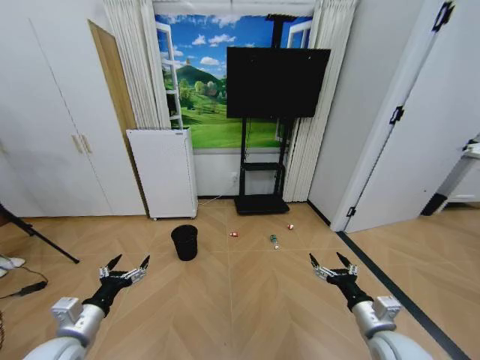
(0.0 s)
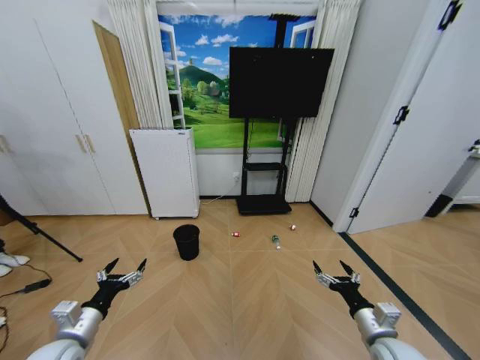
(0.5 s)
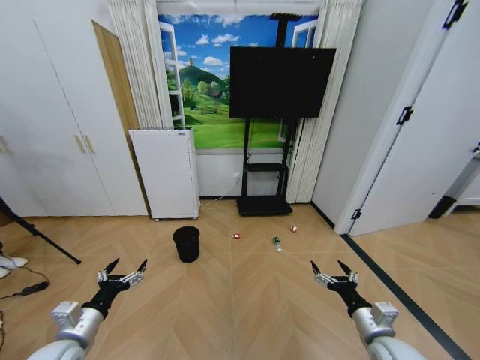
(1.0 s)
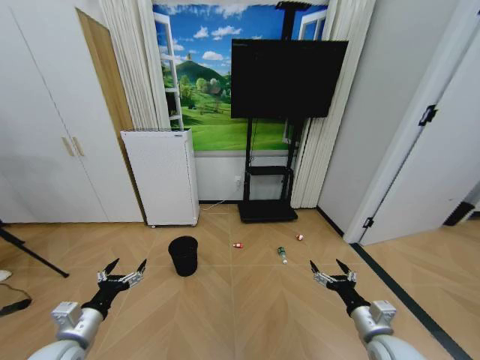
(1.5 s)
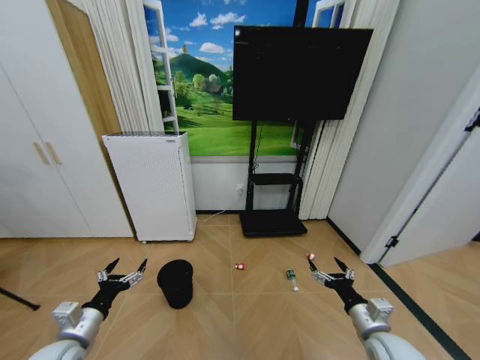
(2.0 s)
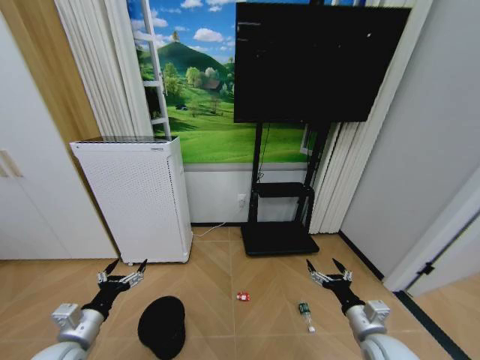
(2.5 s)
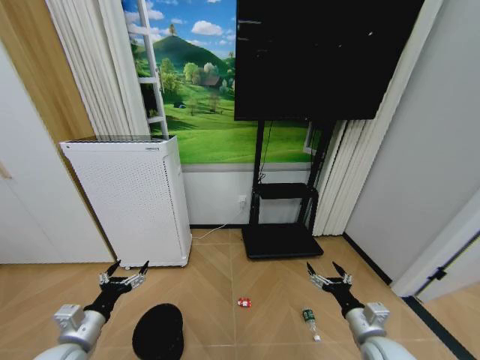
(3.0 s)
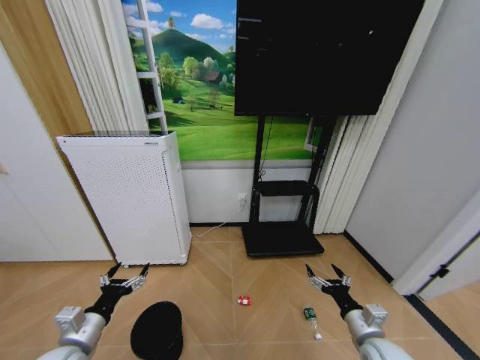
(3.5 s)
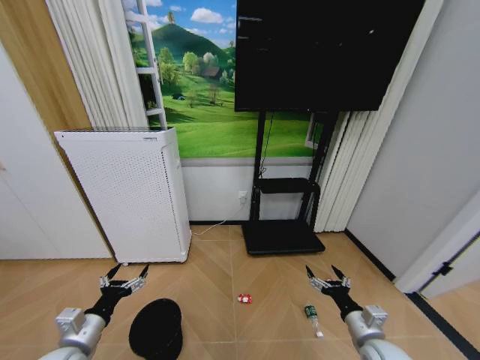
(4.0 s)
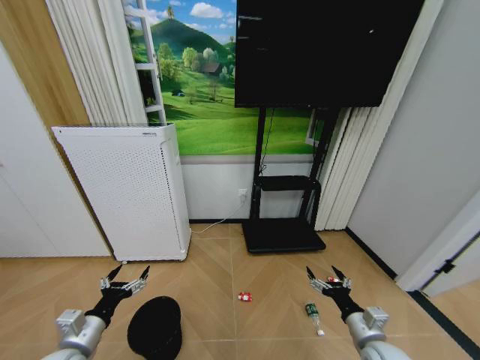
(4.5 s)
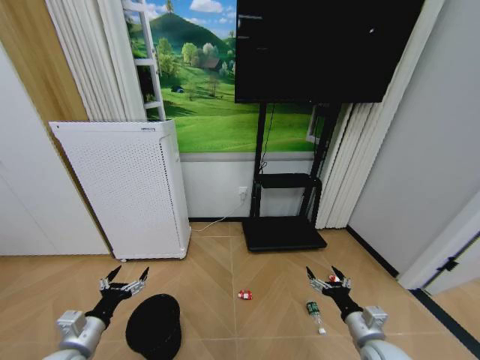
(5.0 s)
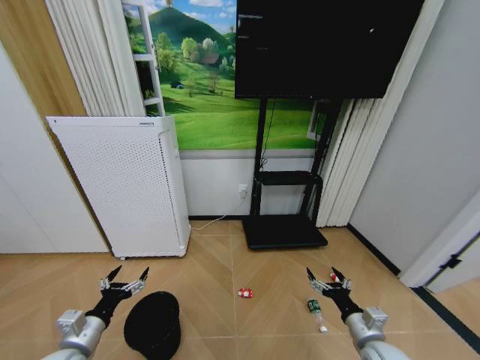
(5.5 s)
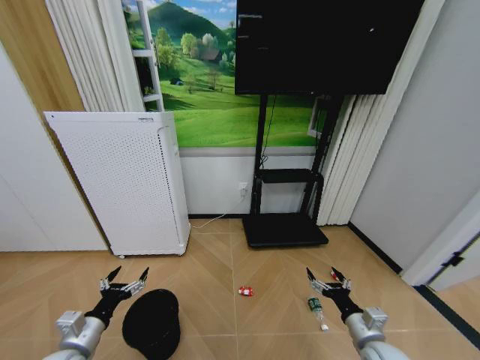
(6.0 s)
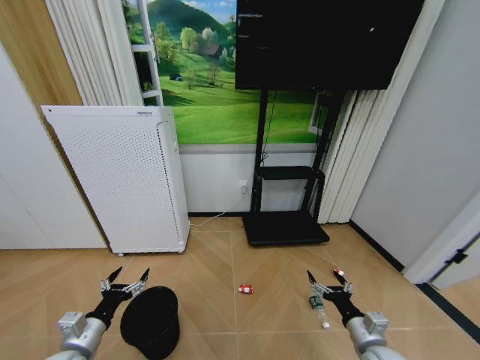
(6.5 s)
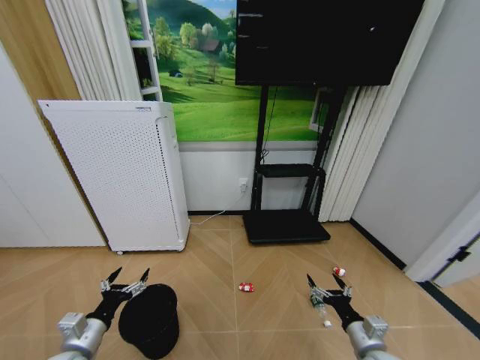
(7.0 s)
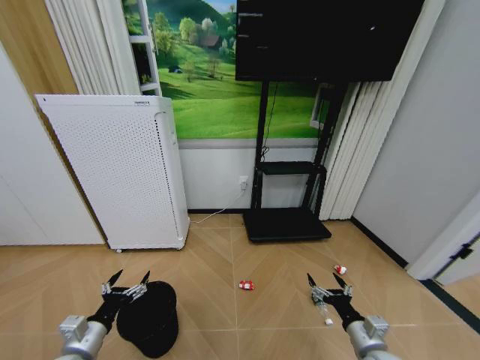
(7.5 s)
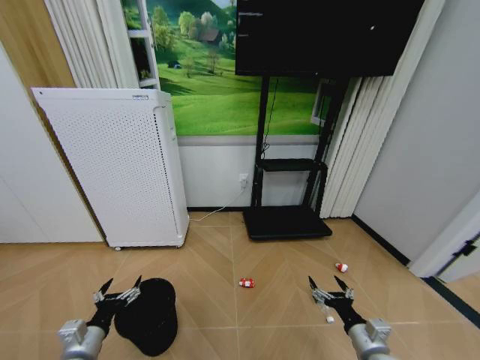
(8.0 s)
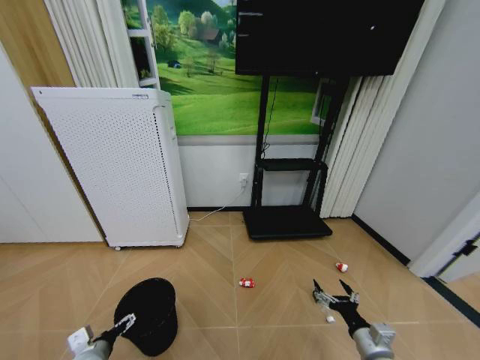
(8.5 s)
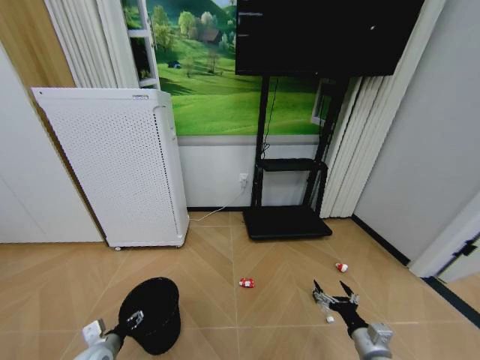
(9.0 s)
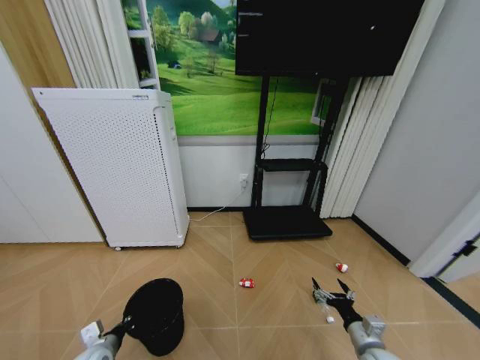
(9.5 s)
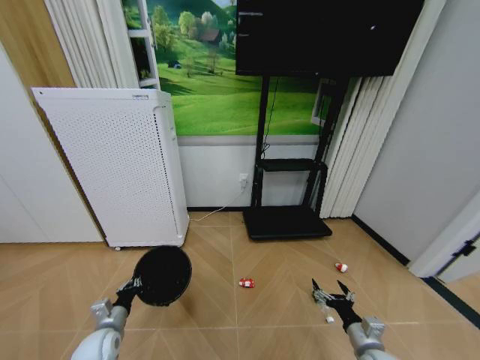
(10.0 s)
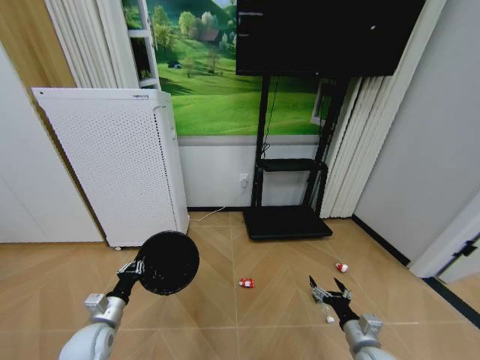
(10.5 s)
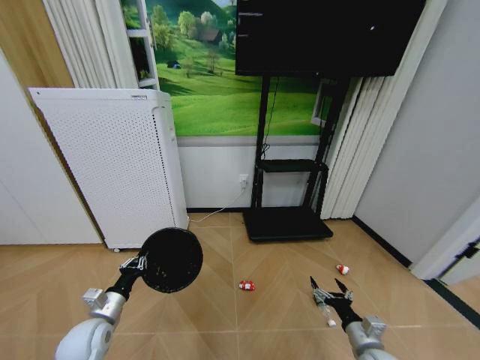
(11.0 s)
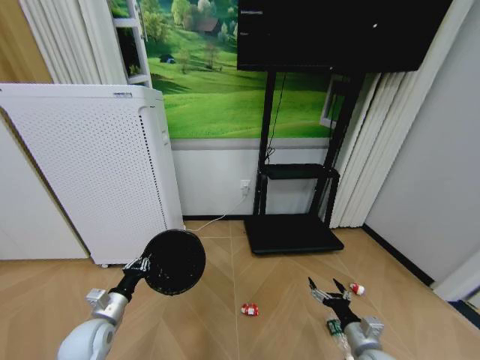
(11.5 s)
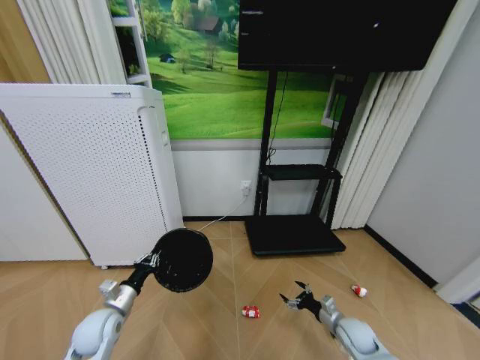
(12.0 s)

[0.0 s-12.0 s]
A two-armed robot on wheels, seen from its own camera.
Task of the whole recording: Pick up the trash bin and place the garbage on the floor into it.
4.0 to 6.0 s: Both grippers stay about where they are.
6.0 to 8.0 s: The grippers make only small movements.
8.0 to 10.0 s: The left gripper travels forward and downward by some 10 cm, and closes up.
10.0 to 12.0 s: The left gripper heads upward, covering some 5 cm. Meanwhile the right gripper shifts about 10 cm forward and downward.

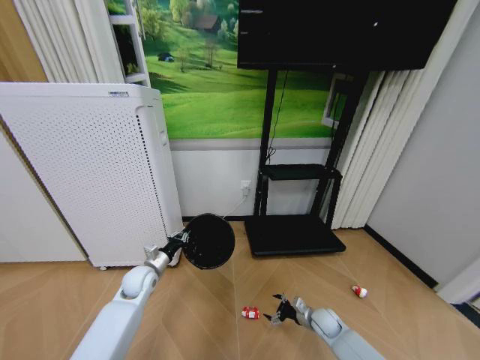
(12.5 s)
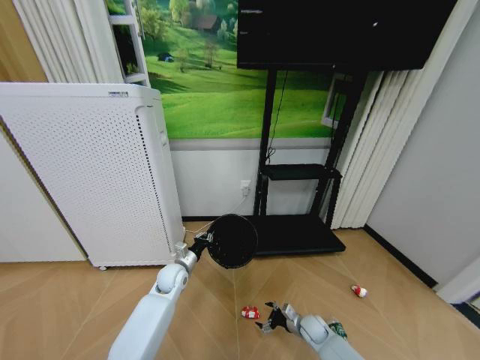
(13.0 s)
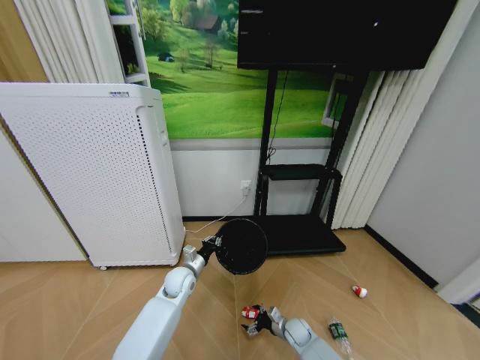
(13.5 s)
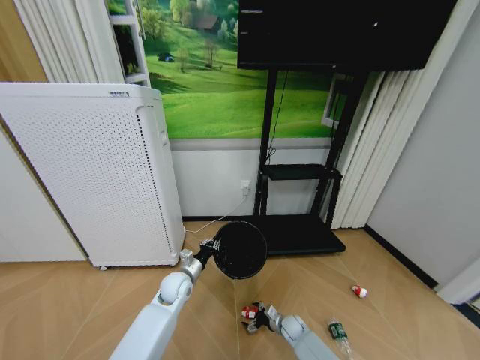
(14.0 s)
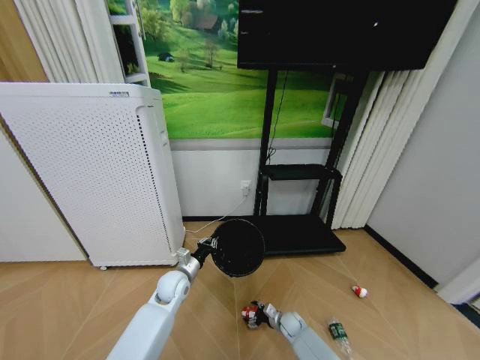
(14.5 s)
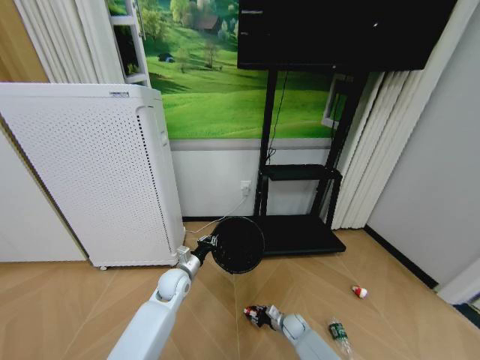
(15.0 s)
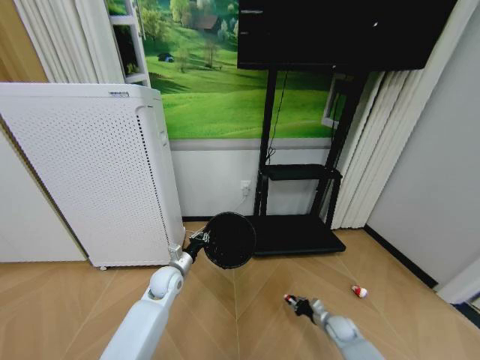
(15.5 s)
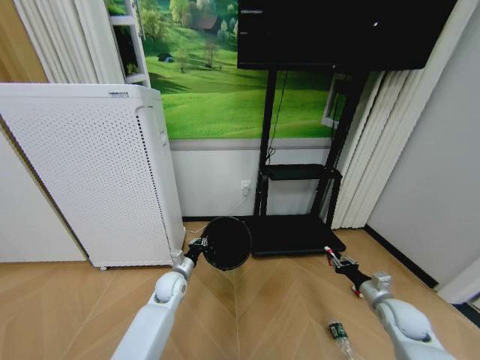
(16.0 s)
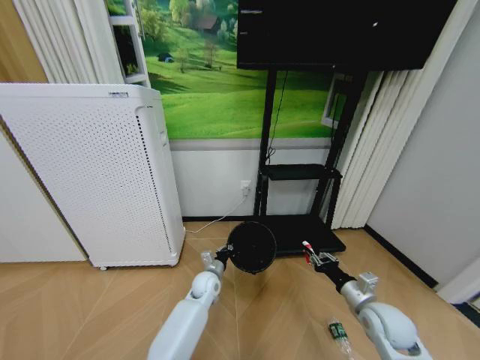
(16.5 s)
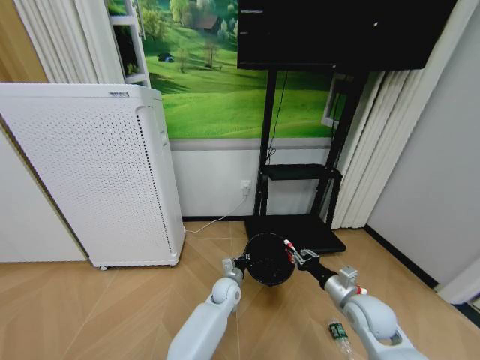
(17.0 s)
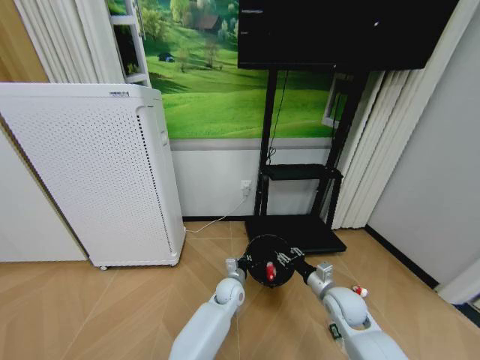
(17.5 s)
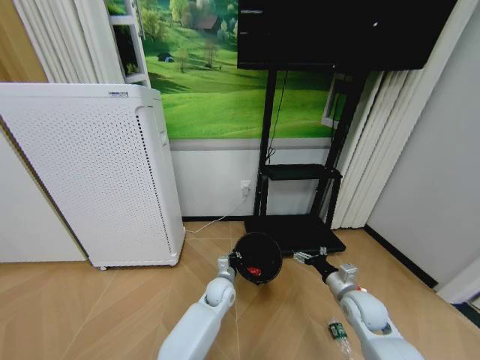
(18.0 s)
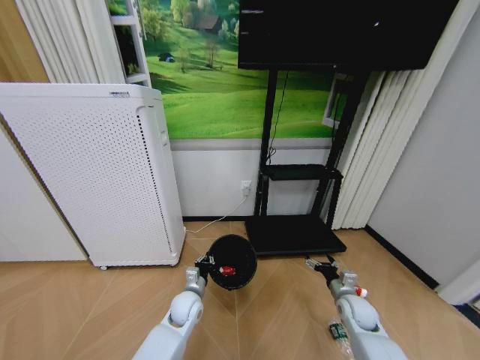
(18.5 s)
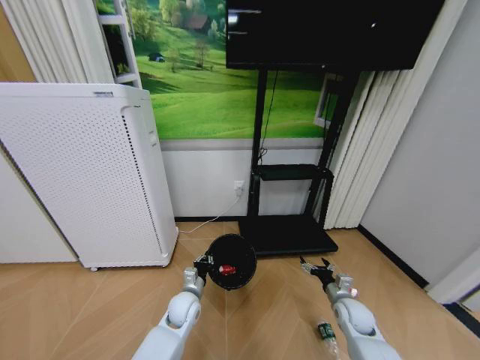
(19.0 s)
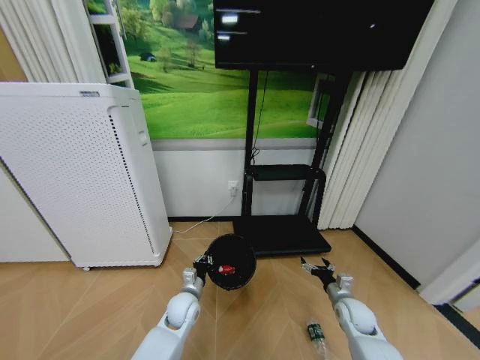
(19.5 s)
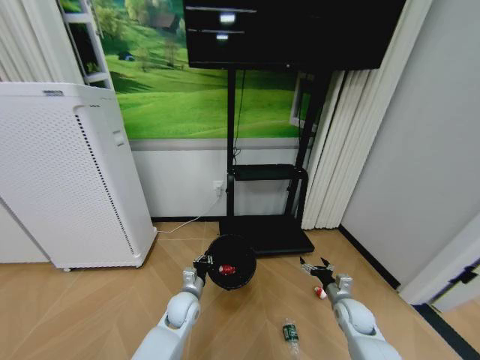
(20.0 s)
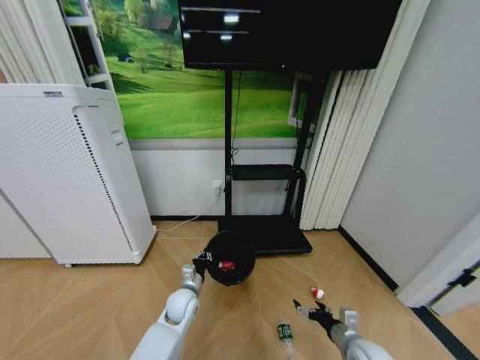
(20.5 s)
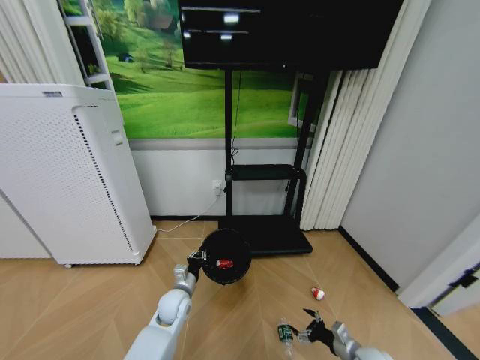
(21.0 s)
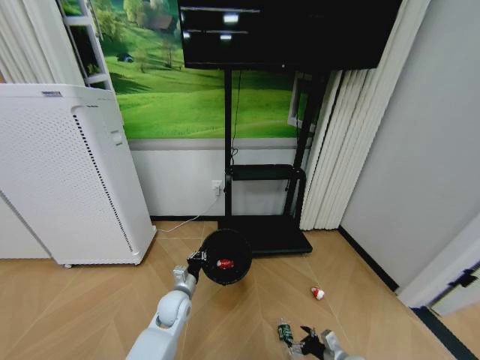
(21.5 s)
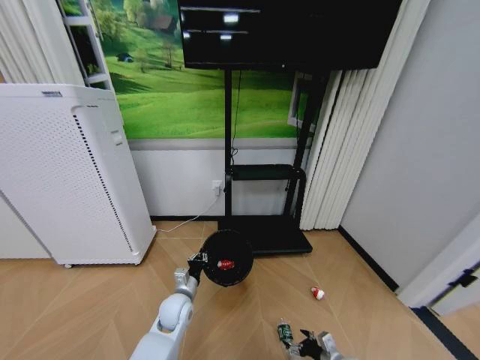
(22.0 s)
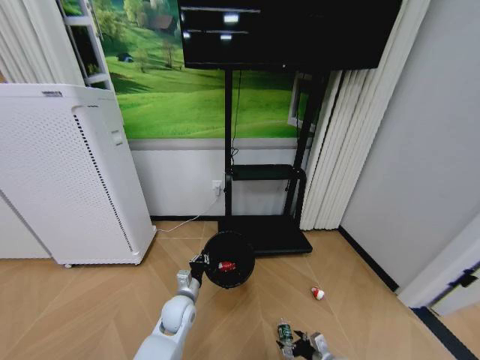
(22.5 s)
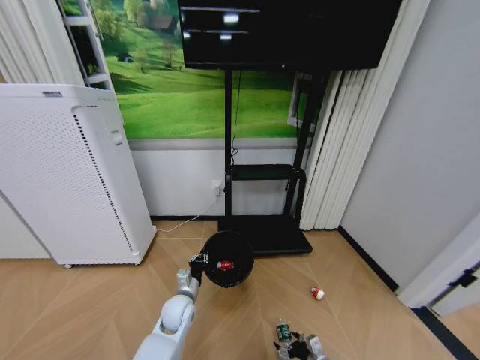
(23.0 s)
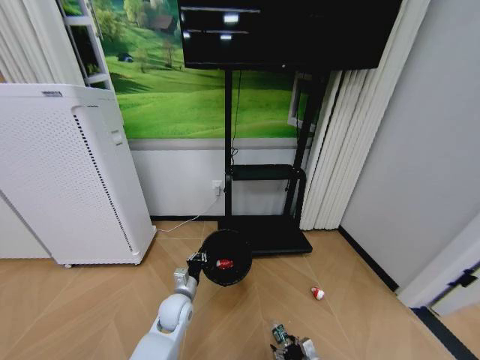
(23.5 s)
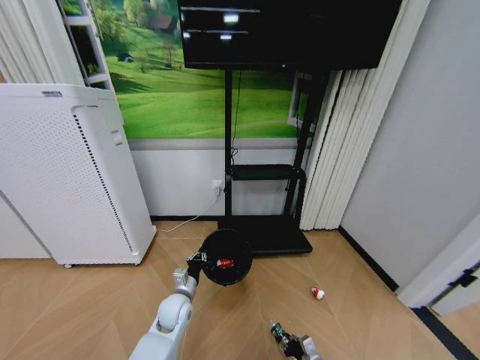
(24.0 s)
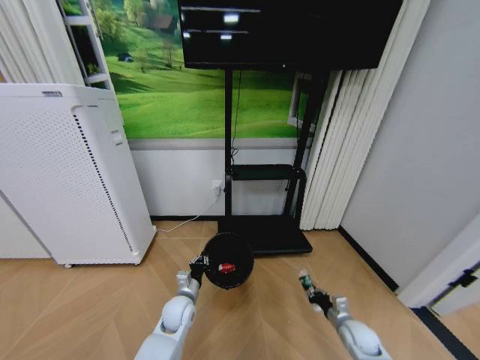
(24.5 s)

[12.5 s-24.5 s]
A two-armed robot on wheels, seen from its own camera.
Task of the whole recording: Pick up the trash bin and place the garbage on the floor into it.
12.5 to 14.5 s: The right gripper goes some 15 cm to the left and downward; the left gripper goes some 10 cm to the right.
14.5 to 16.5 s: The right gripper travels upward and to the right by approximately 30 cm, and closes up; the left gripper travels to the right and downward by roughly 10 cm.
16.5 to 18.5 s: The left gripper travels backward and to the left by some 10 cm, while the right gripper heads downward and forward, covering some 10 cm, and opens up.
18.5 to 20.5 s: The right gripper shifts some 10 cm backward.
20.5 to 22.5 s: The right gripper heads downward, covering roughly 15 cm.
22.5 to 24.5 s: The right gripper travels forward, upward and to the right by approximately 10 cm, and closes.

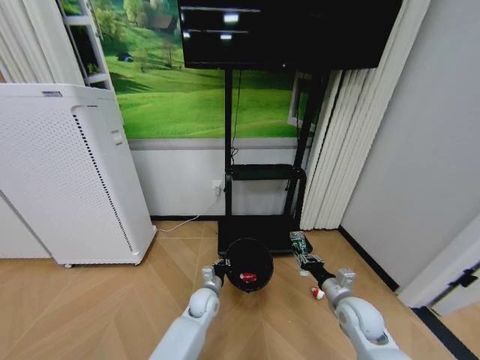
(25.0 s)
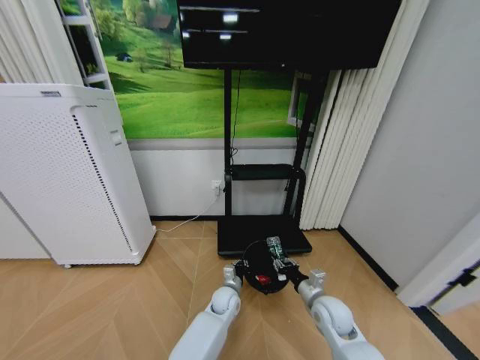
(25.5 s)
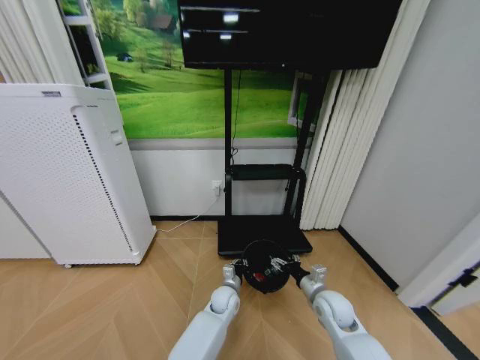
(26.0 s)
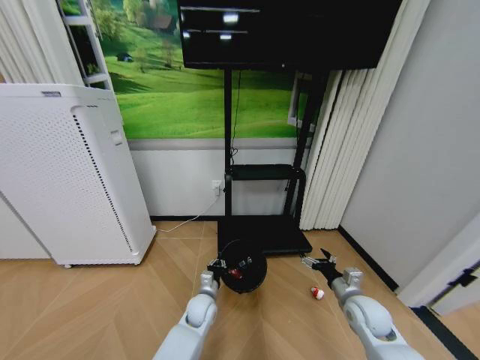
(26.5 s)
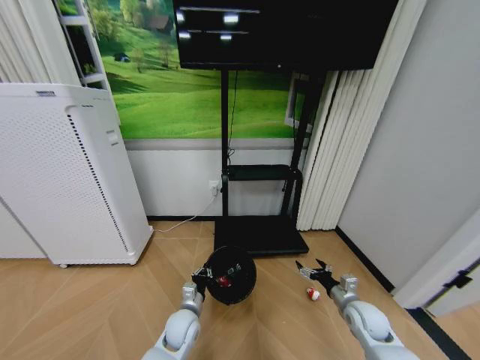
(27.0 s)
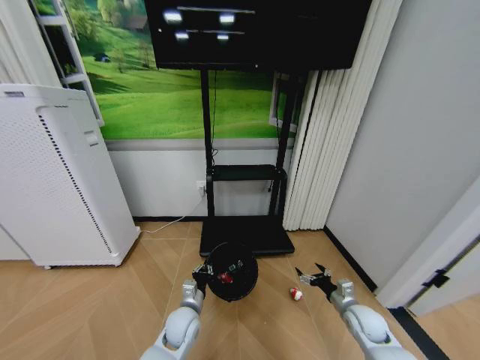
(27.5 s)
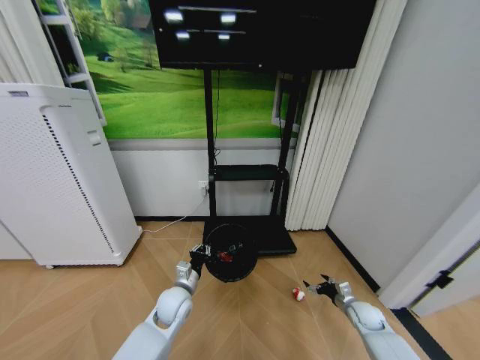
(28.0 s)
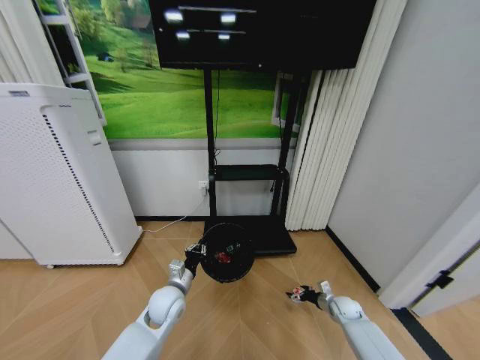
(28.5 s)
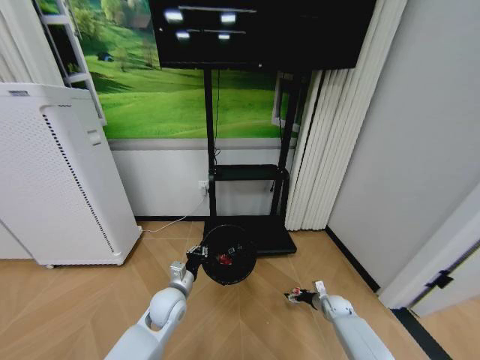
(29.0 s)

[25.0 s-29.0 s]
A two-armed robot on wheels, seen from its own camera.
Task of the whole recording: Pick up the trash bin and place the garbage on the floor into it.
25.0 to 27.0 s: The left gripper moves backward and to the left, roughly 10 cm; the right gripper shifts some 5 cm to the right, and opens up.
27.0 to 29.0 s: The right gripper moves downward and forward, some 20 cm. Meanwhile the left gripper is displaced upward by some 10 cm.
